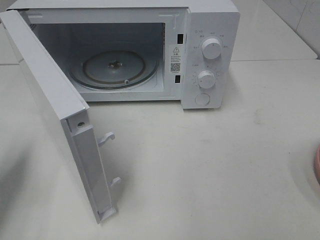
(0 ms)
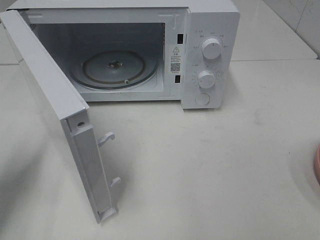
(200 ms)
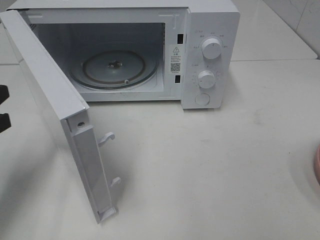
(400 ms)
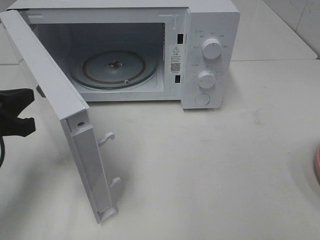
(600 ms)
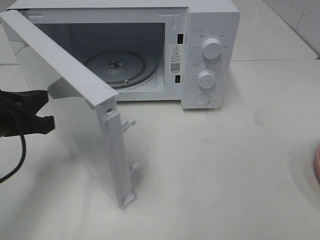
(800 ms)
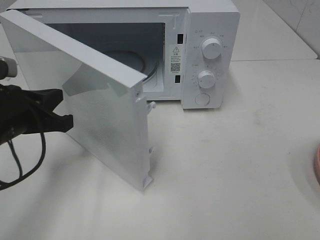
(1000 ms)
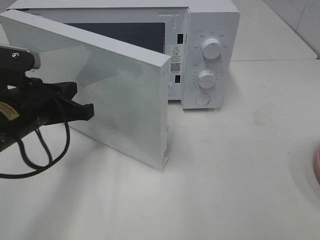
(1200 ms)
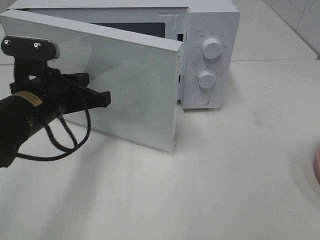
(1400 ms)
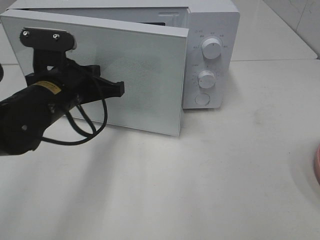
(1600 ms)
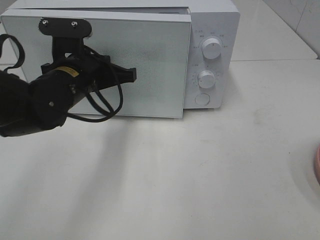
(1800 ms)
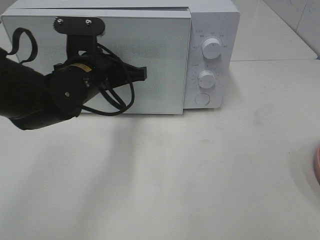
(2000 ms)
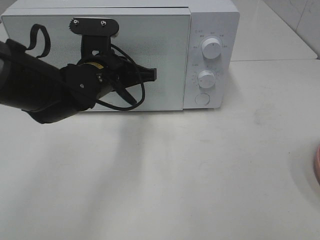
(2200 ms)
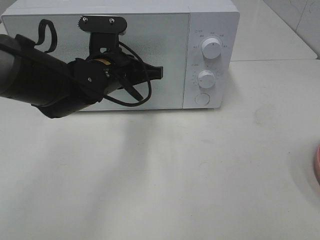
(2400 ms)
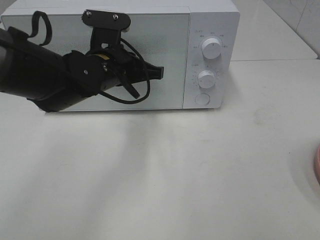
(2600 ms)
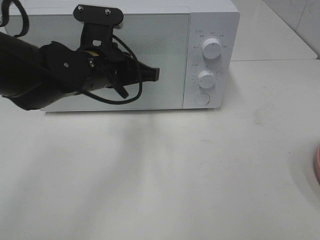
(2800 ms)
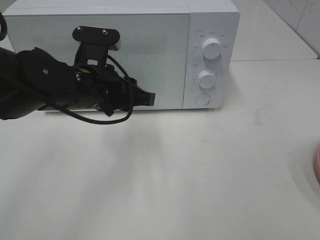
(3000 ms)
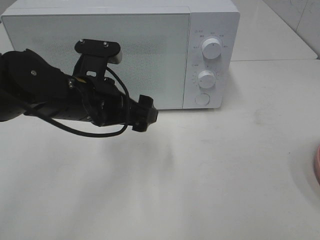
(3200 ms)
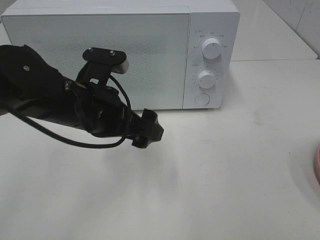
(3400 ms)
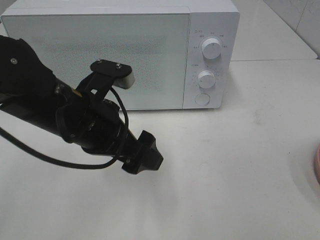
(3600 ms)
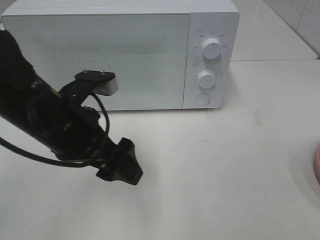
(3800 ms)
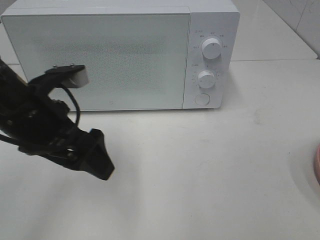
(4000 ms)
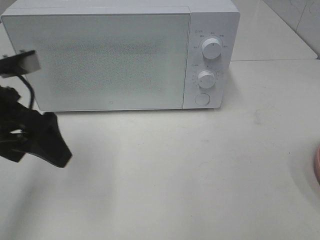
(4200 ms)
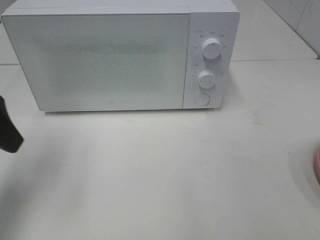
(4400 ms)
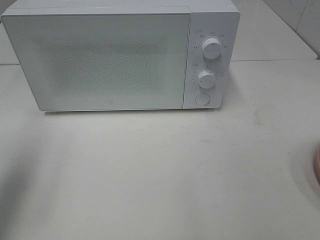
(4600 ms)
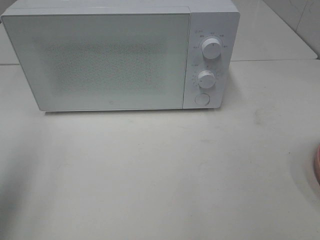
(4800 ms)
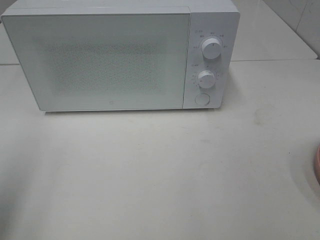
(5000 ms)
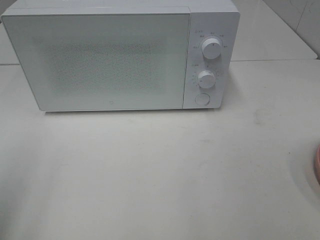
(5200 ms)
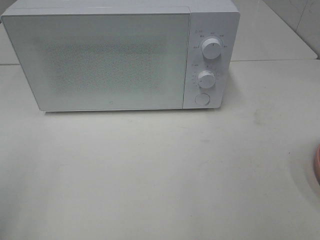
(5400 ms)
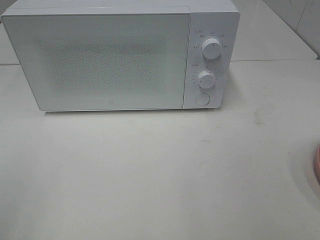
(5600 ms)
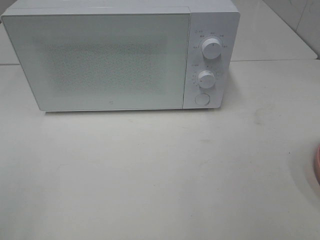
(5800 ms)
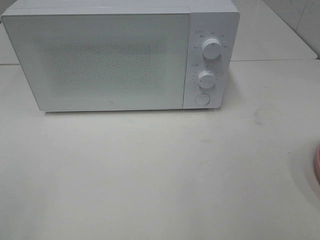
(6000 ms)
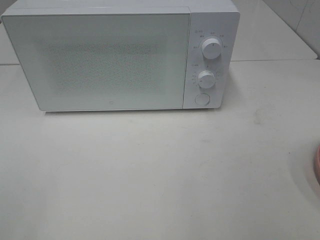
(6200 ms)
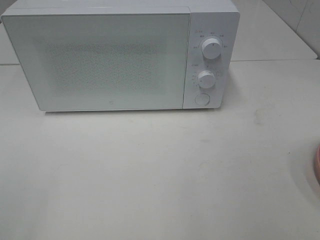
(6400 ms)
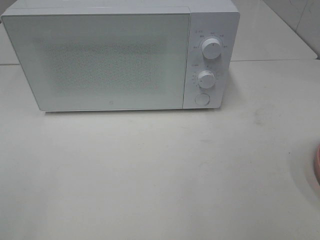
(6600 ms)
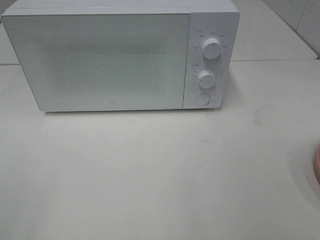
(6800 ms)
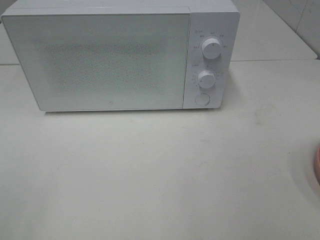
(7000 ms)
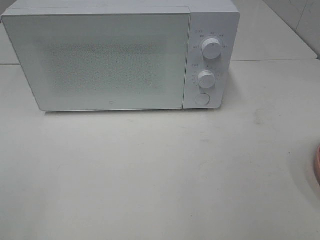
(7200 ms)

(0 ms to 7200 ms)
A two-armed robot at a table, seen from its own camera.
Task of the whole recording: Heat the burger.
Step, 0 ms - 3000 ms: Left hand: close the microwave door.
0 ms - 1400 ms: The left gripper goes about 15 cm to the right and forward.
1400 ms - 2800 ms: The left gripper travels to the right by about 5 cm.
2800 ms - 4400 ms: The left gripper heads to the left, backward and upward, covering about 25 cm, and opens.
4400 ms - 5800 ms: The left gripper heads backward, covering some 20 cm.

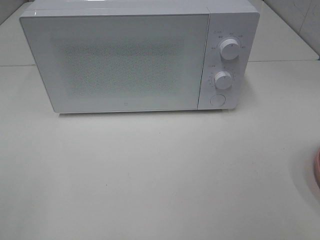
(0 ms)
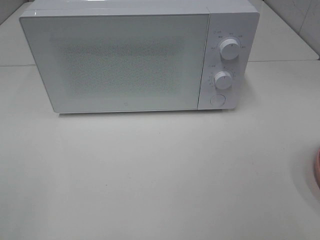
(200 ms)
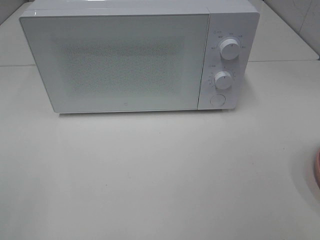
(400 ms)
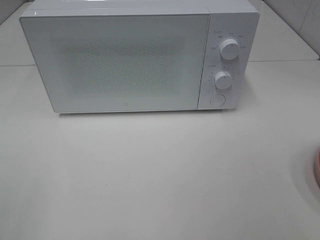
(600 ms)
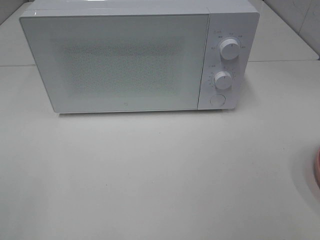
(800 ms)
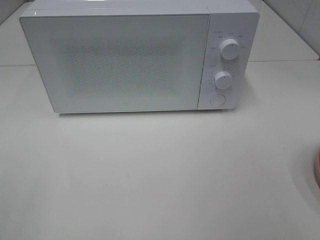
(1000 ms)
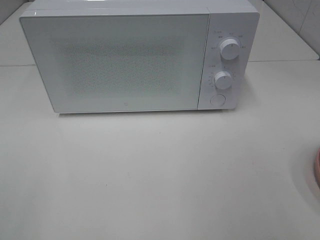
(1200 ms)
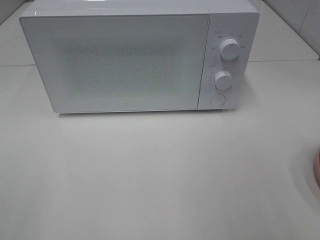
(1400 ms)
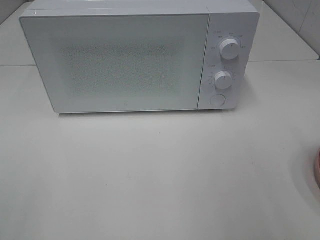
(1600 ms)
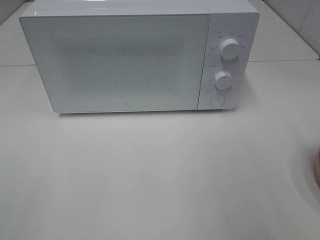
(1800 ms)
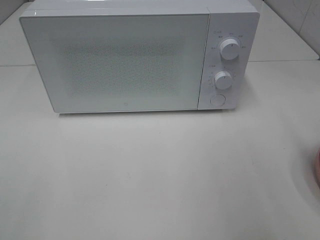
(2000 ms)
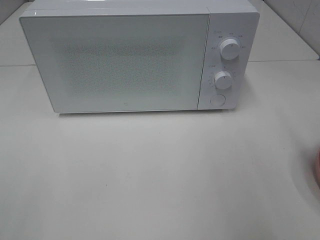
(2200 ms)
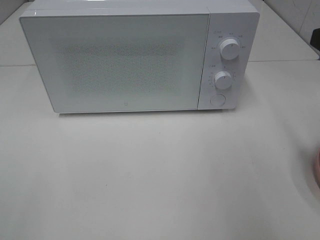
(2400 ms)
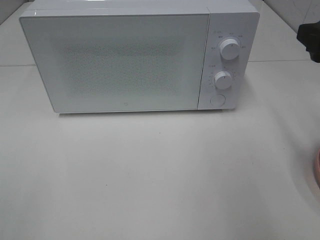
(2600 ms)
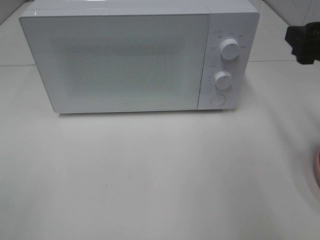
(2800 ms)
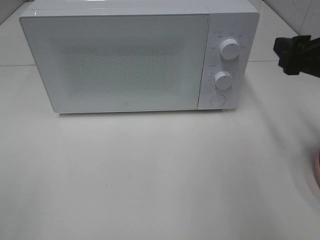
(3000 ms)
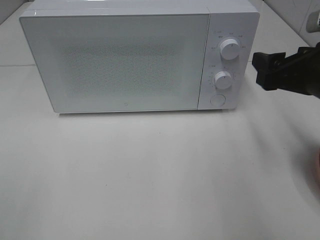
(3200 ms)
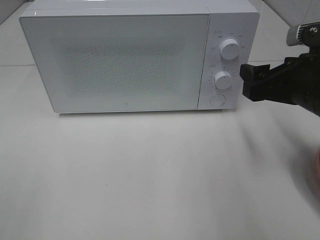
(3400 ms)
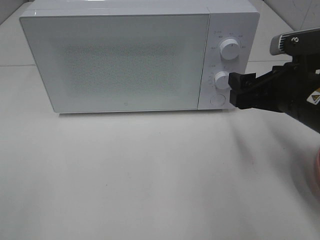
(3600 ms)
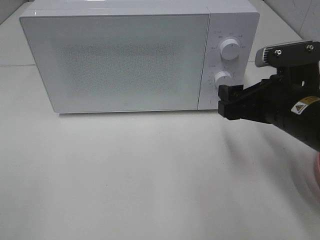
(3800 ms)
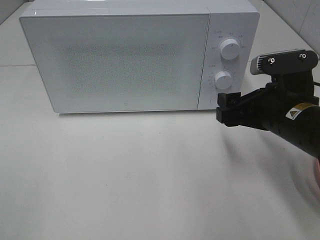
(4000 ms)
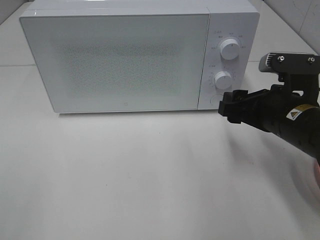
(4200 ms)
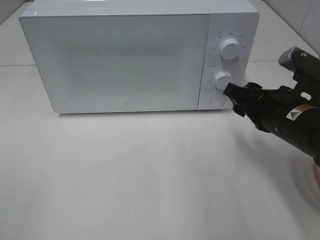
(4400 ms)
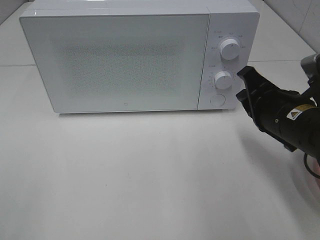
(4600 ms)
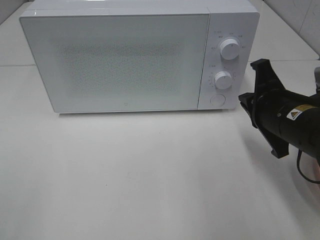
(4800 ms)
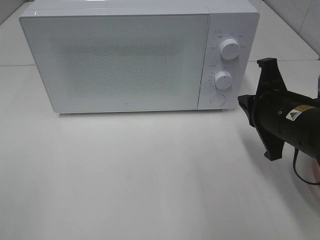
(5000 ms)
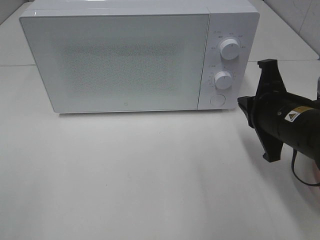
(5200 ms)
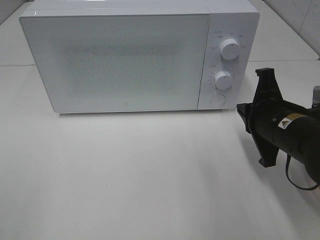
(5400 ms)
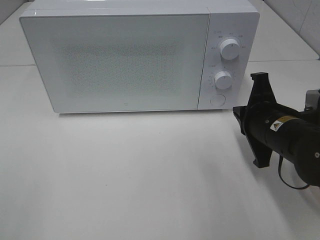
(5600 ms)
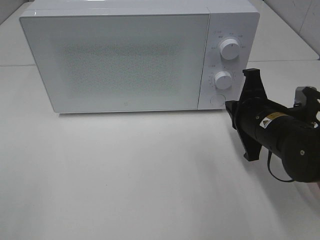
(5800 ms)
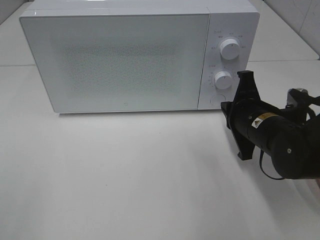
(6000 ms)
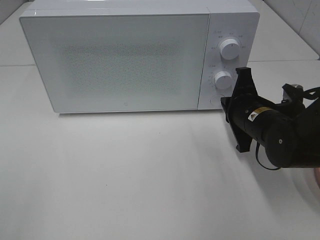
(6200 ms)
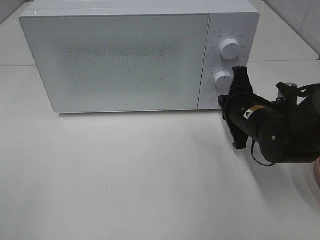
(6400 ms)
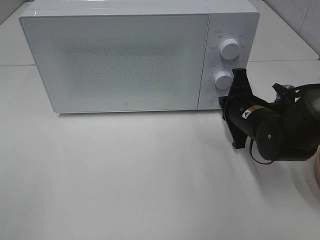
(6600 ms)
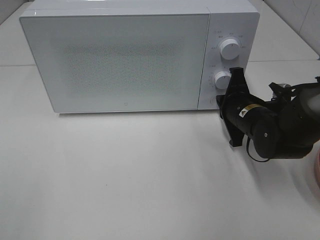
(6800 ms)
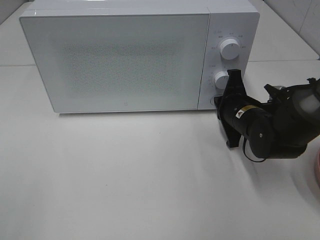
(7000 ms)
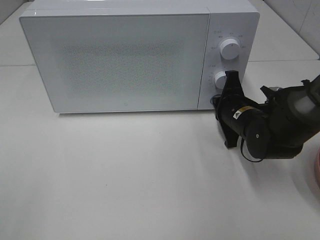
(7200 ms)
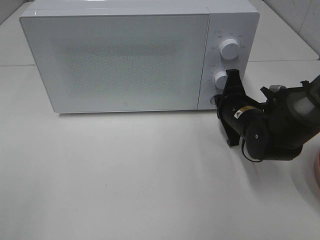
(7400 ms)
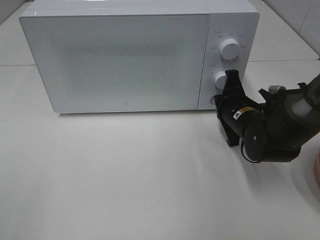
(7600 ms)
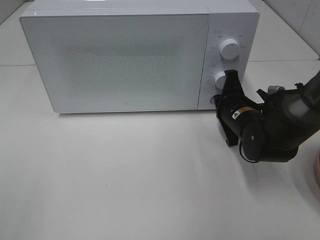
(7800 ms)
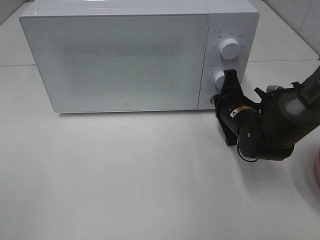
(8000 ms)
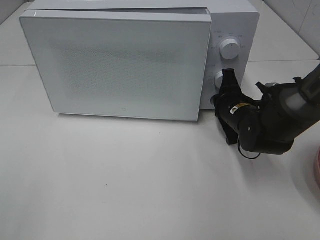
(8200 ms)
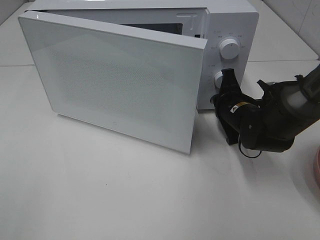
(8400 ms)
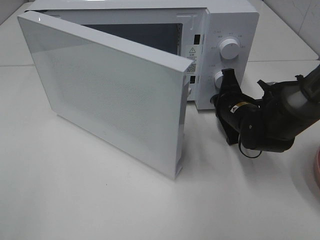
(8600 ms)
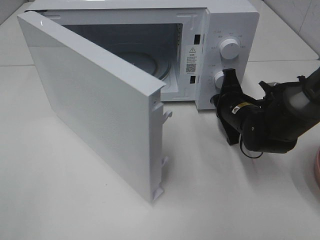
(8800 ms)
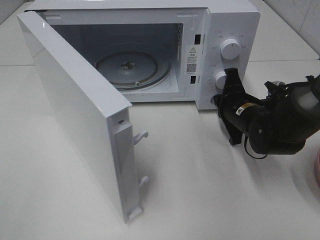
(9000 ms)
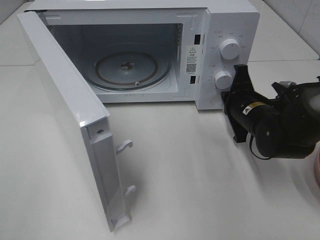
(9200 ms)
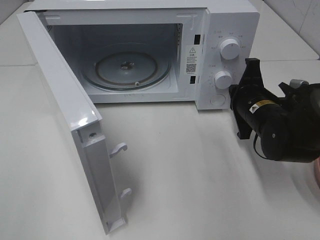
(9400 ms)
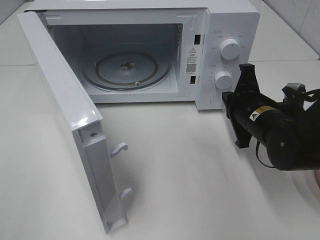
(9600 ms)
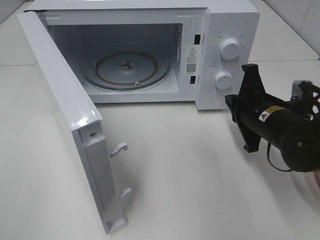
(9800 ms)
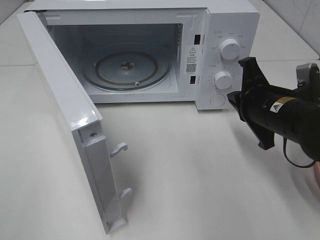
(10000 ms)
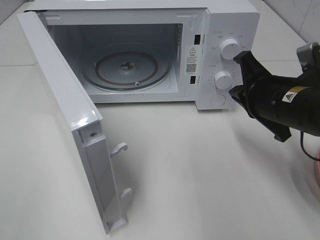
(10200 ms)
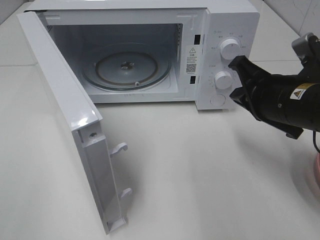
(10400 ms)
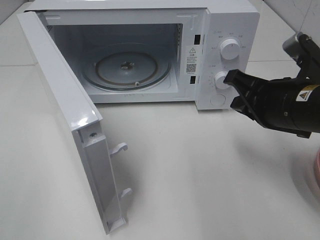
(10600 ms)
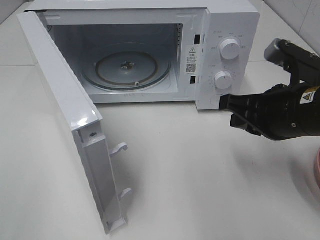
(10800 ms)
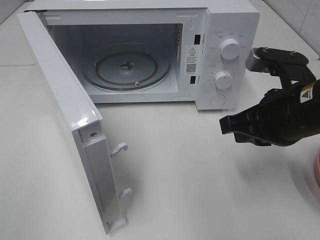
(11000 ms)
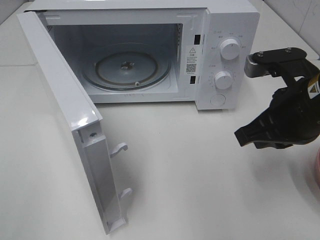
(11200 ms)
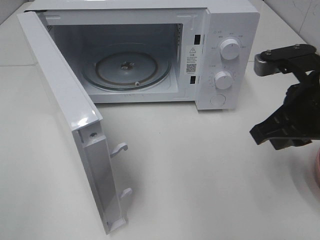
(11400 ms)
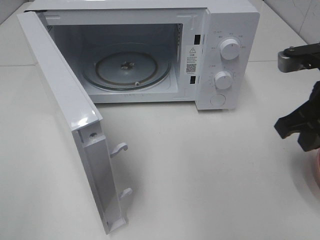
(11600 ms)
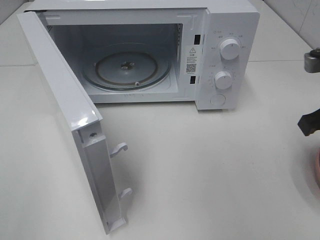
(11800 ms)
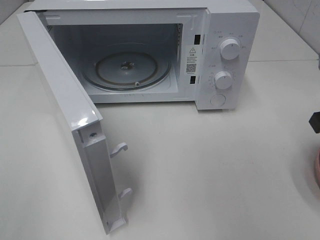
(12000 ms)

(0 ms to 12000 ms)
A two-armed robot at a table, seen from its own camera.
Task of the whole recording: Heat the burger.
Step, 0 ms - 9200 ms: Right hand: press the switch.
1600 ms - 3000 ms: The right gripper shifts approximately 15 cm forward and downward.
3000 ms - 4400 ms: The right gripper travels downward and to the left by approximately 10 cm.
4400 ms - 6000 ms: The right gripper ends up approximately 5 cm from where it was, and closes.
6000 ms - 7600 ms: The right gripper shifts approximately 5 cm forward.
9000 ms - 10400 ms: The right gripper travels upward and backward by some 15 cm.
10400 ms - 12000 ms: The right gripper travels to the right by roughly 10 cm.

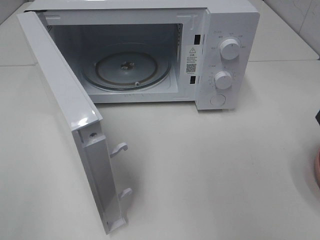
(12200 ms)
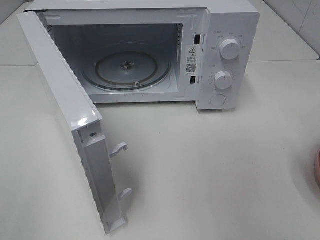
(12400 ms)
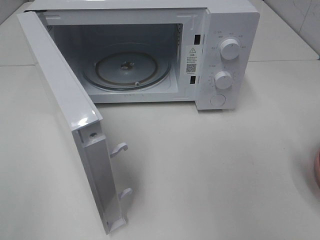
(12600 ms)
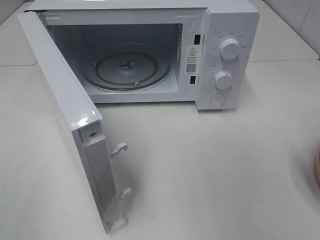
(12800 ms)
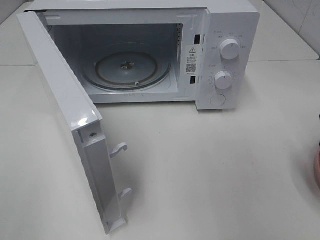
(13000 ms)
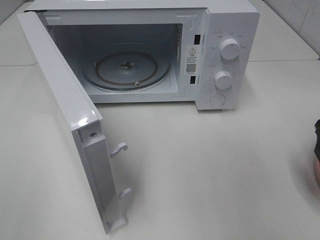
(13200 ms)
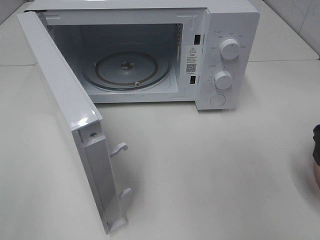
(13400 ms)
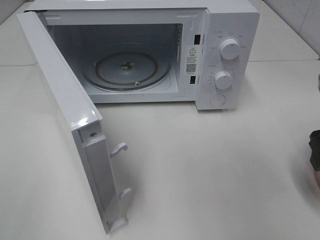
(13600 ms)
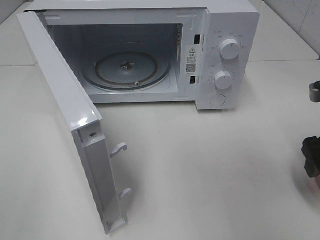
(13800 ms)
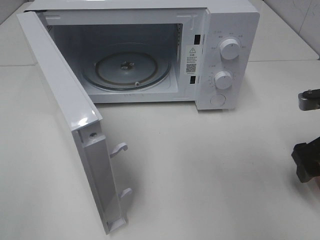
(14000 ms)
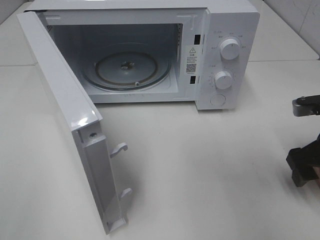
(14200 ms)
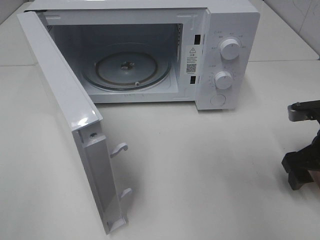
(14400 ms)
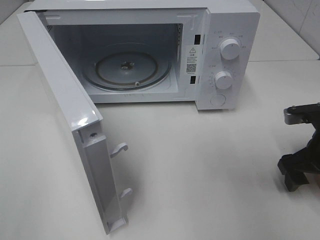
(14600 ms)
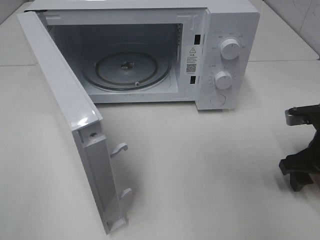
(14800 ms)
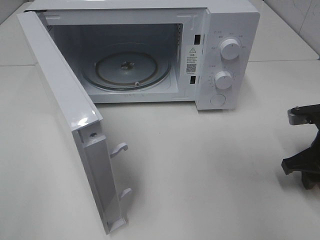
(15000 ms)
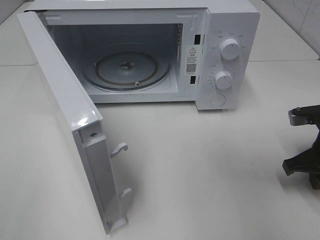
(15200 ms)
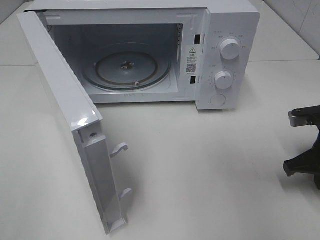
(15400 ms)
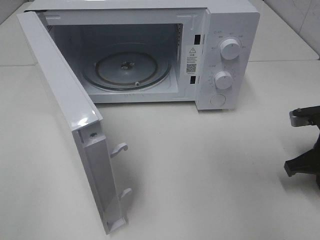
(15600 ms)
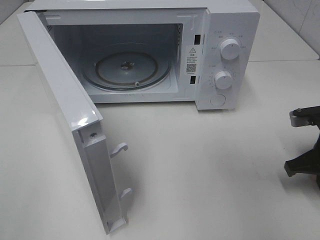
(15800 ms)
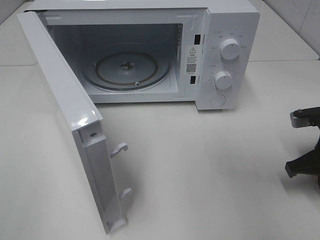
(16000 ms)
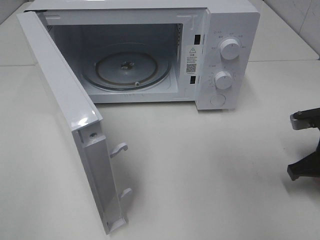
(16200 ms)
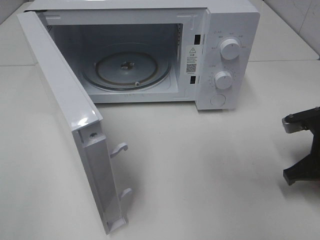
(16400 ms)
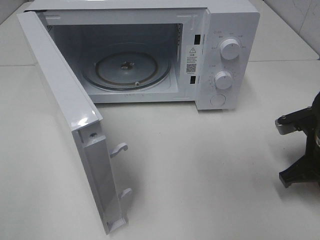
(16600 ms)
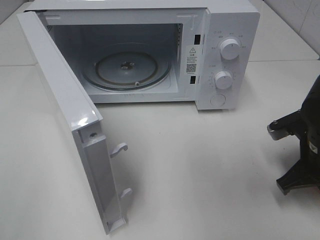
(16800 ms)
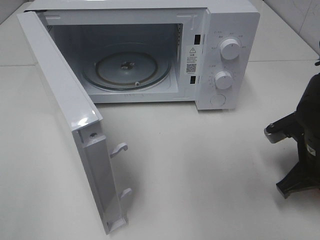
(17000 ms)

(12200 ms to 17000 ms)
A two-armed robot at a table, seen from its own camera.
Task of the whole recording: Heat the burger.
Step, 12200 ms - 16200 ms: Right hand: grab the plate with the hamburger.
12200 ms - 13800 ms: The right gripper shifts approximately 5 cm downward, and opens its fingers.
13800 ms - 15400 ms: The right gripper shifts some 5 cm downward, and closes.
15400 ms - 17000 ms: The right gripper ends up about 5 cm from where it was.
